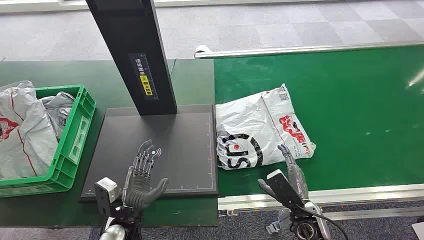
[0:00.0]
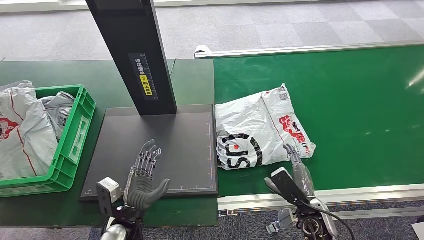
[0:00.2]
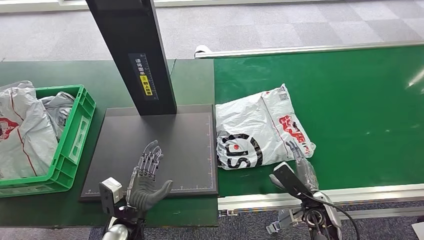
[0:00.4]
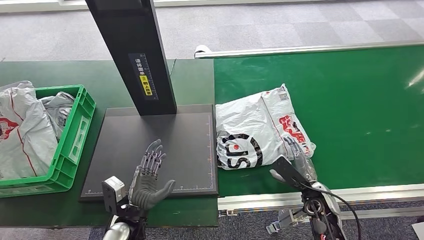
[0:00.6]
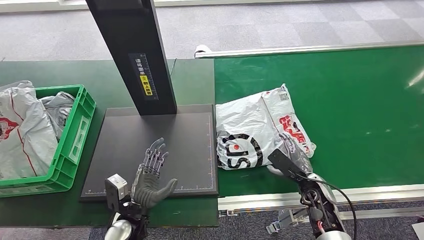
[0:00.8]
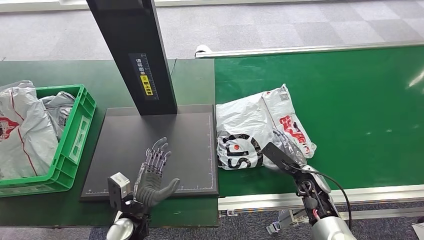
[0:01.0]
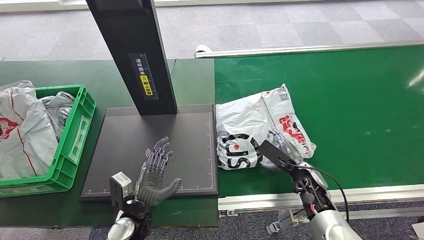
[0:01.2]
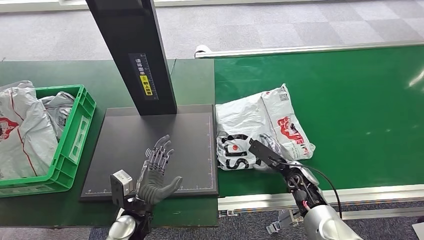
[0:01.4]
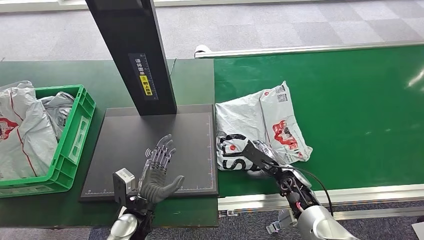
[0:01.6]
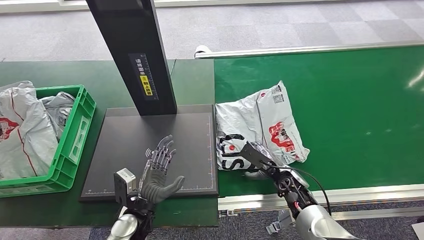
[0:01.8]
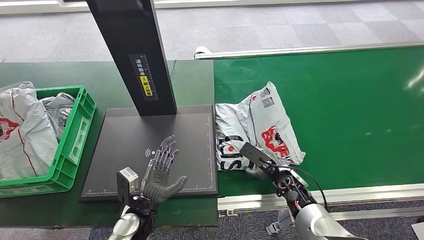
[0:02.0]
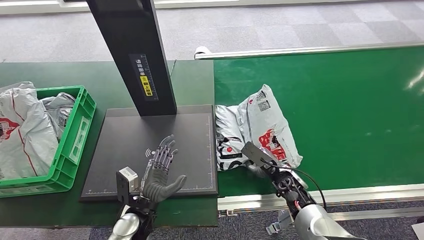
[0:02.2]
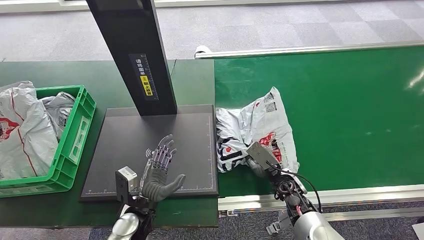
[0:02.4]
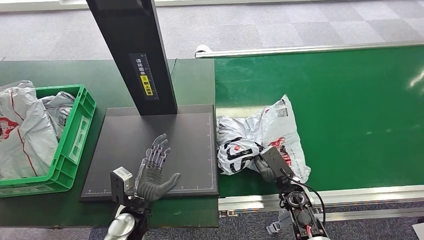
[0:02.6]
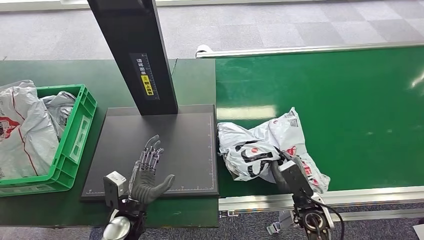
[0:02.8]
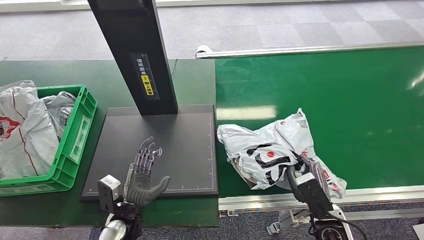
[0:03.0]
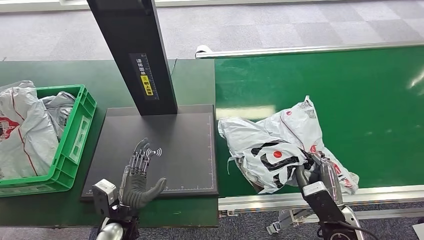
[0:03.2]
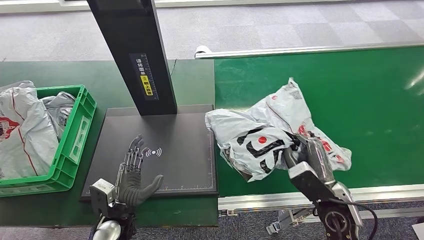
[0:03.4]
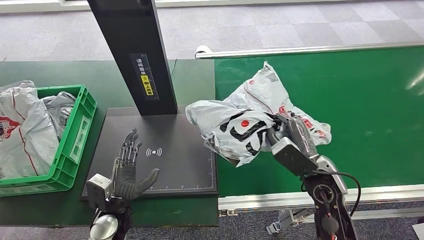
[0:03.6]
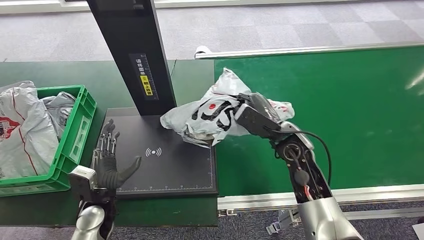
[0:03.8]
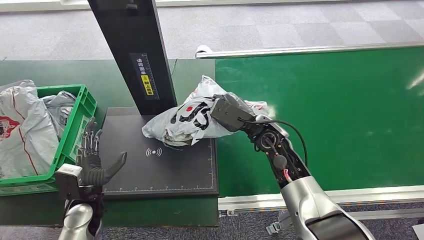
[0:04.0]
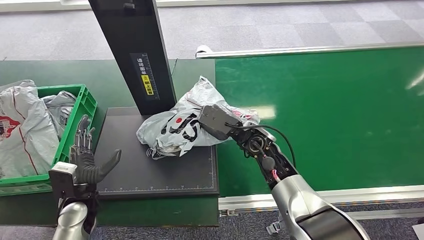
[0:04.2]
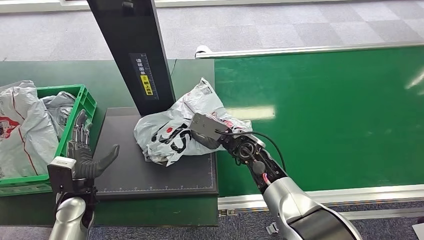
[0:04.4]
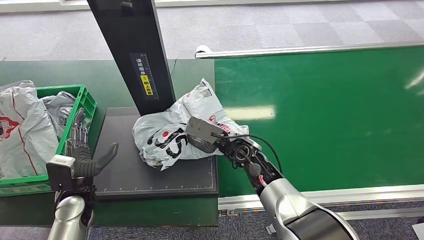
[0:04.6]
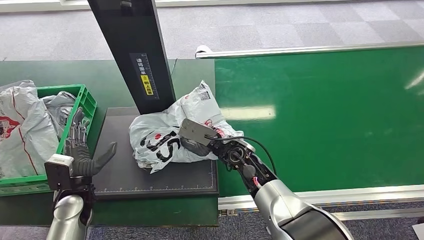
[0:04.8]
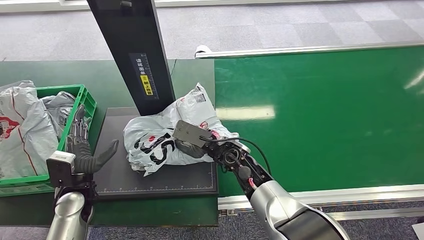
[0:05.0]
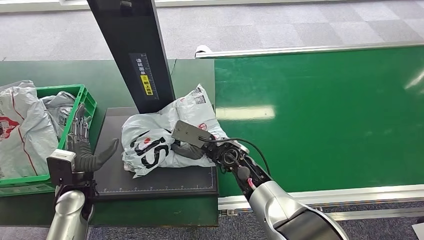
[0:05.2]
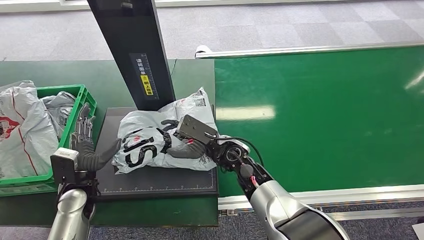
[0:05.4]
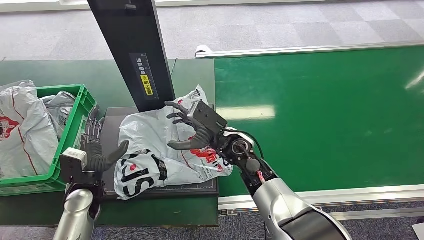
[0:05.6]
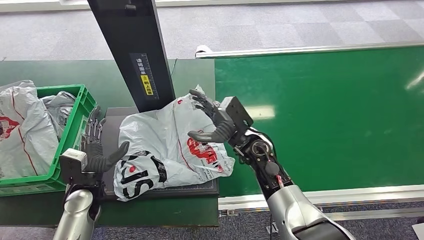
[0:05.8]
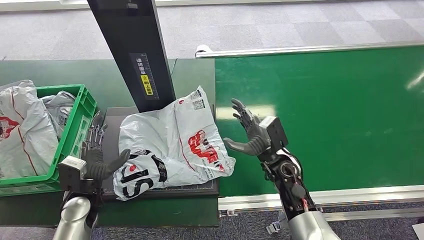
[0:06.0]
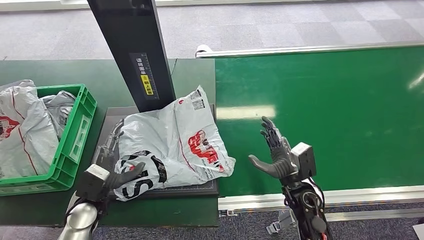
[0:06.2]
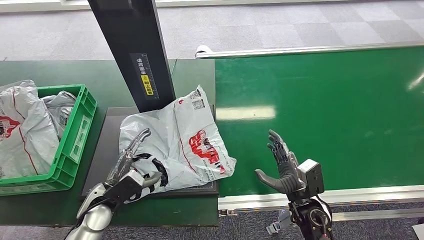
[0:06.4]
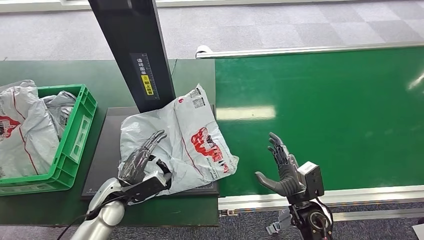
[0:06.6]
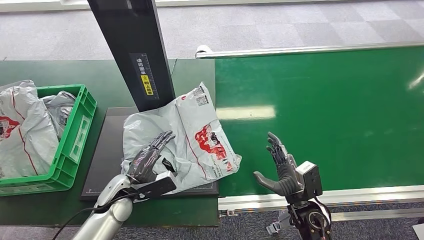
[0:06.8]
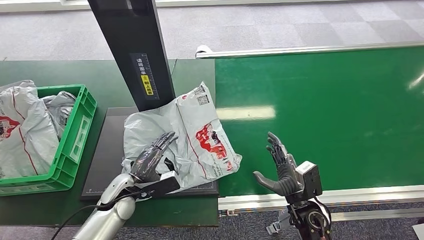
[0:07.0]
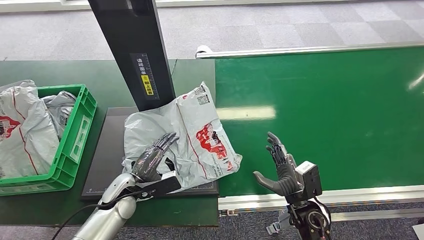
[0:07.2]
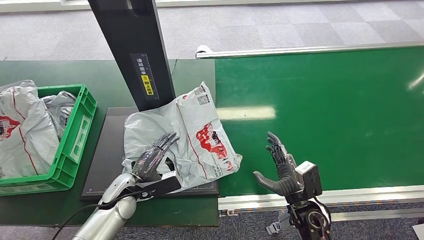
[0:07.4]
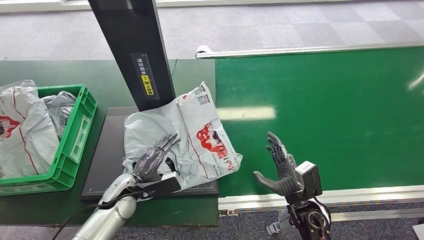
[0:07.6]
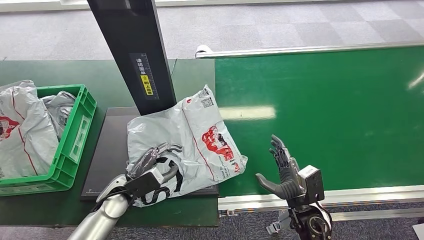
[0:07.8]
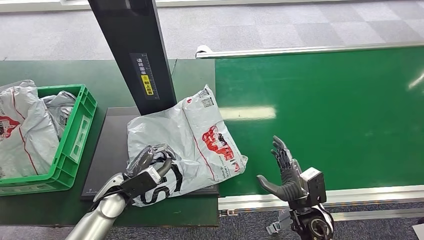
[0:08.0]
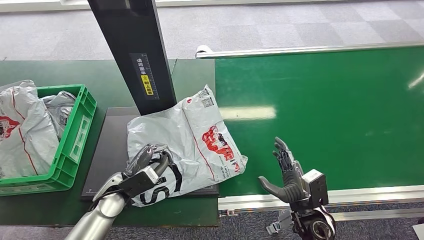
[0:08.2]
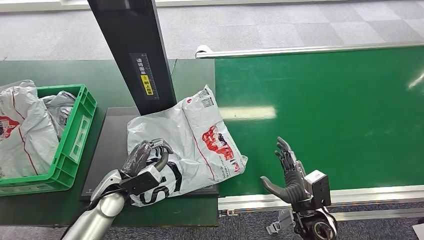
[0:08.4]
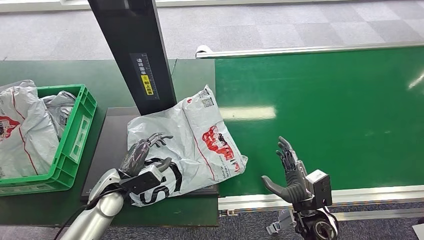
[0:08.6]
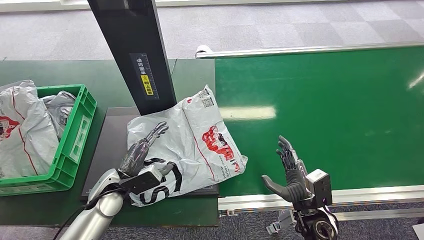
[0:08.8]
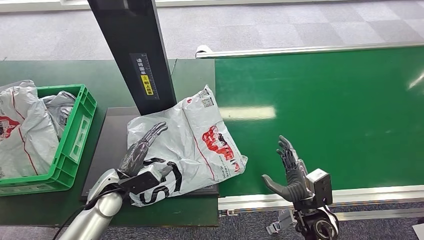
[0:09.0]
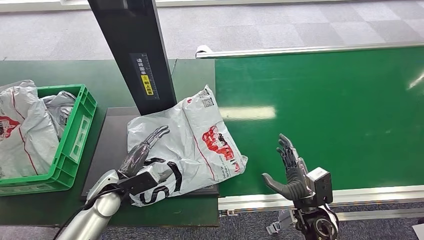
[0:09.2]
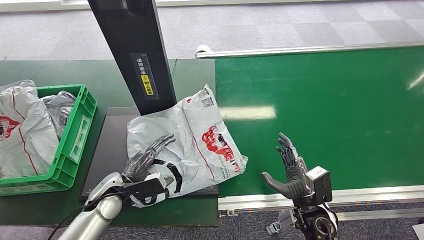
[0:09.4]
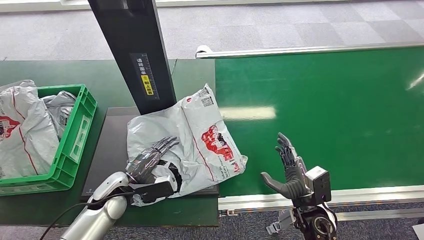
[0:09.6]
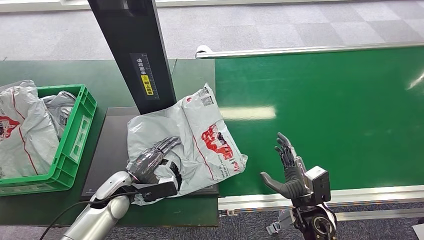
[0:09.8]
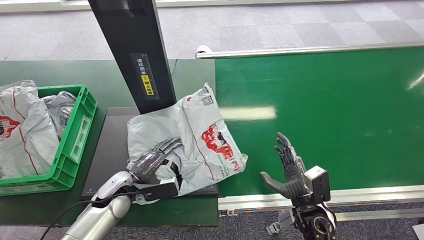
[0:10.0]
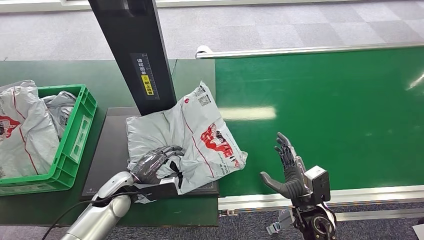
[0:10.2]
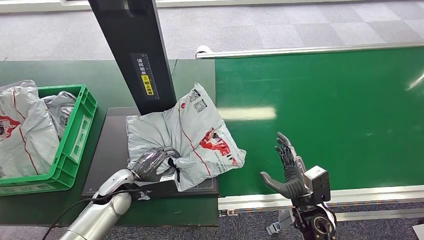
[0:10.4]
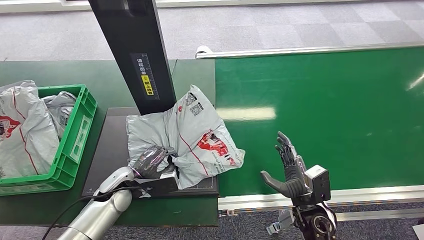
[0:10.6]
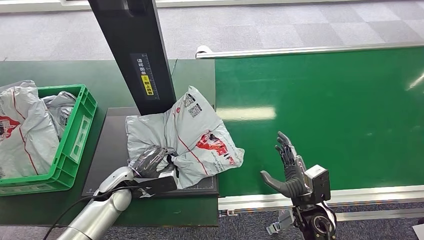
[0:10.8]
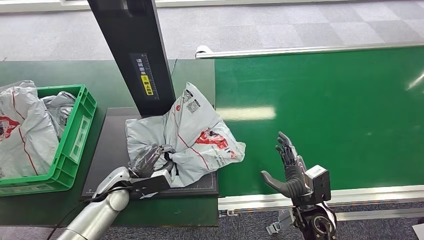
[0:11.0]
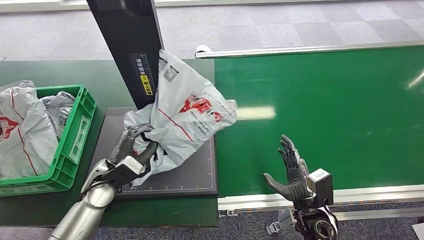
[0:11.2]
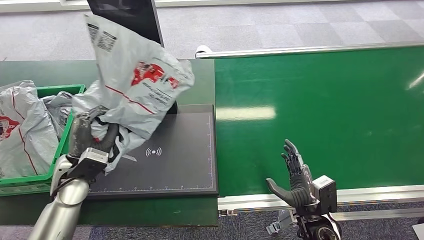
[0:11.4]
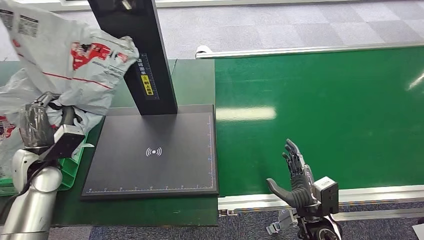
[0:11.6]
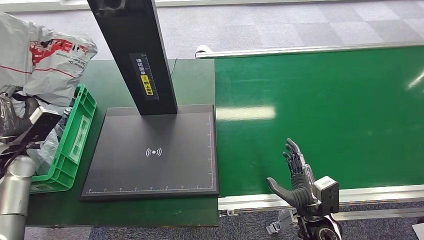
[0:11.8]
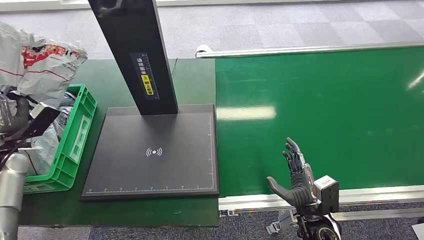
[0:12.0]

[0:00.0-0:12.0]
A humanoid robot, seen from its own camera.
Step, 0:00.0 to 0:03.6: Pick up the package from the conveyor belt.
Step, 0:04.0 to 0:06.2: Place the package onto the inbound machine.
Step, 0:06.6 to 0:11.8: Pick up the package from the inbound machine.
0:01.6 to 0:03.0: The right hand travels backward by some 15 cm.
0:04.4 to 0:06.0: The right hand is displaced to the right by roughly 10 cm.
0:06.0 to 0:07.6: The right hand goes roughly 15 cm backward, to the right and downward; the left hand goes roughly 10 cm to the right.

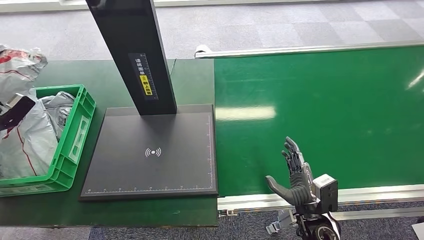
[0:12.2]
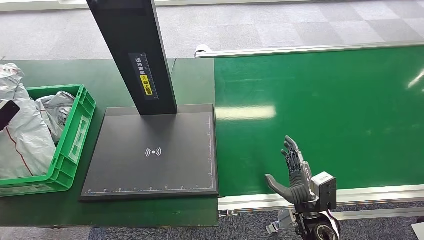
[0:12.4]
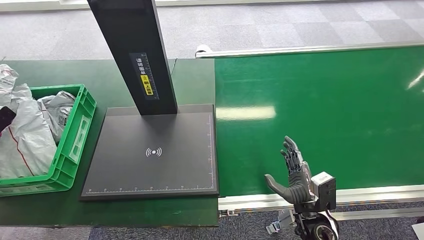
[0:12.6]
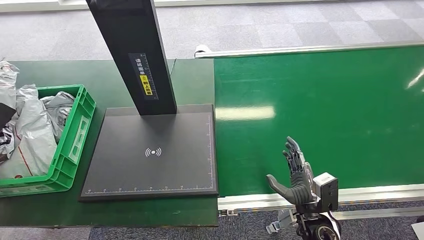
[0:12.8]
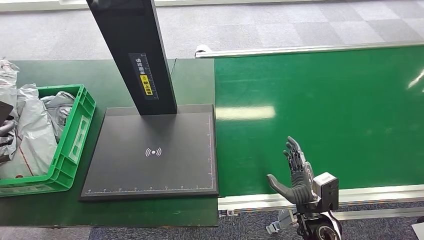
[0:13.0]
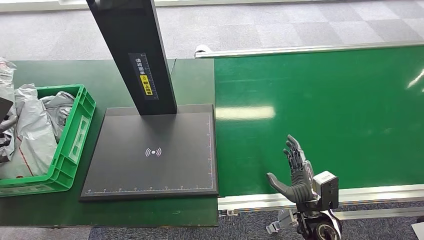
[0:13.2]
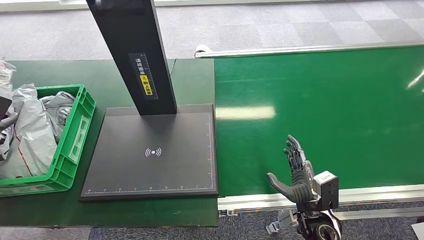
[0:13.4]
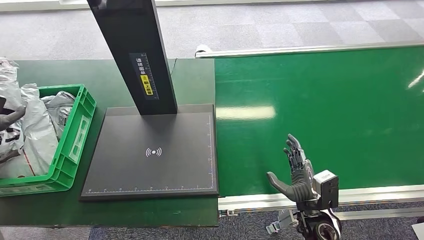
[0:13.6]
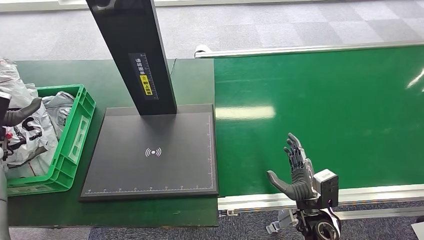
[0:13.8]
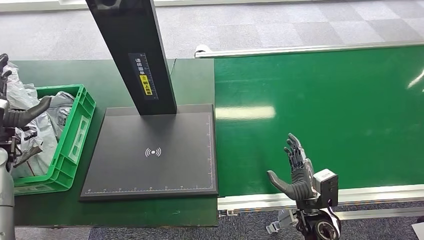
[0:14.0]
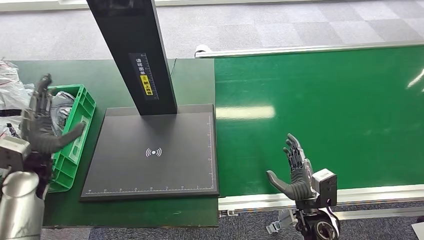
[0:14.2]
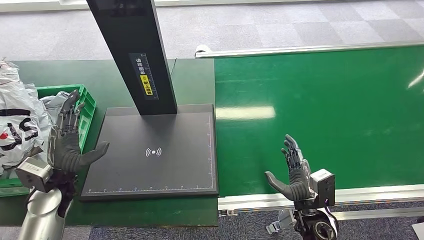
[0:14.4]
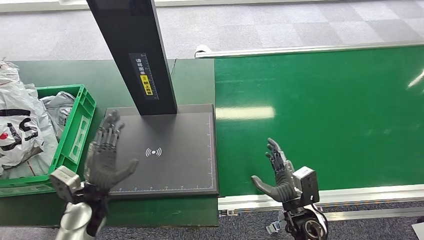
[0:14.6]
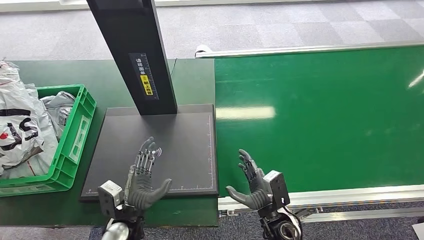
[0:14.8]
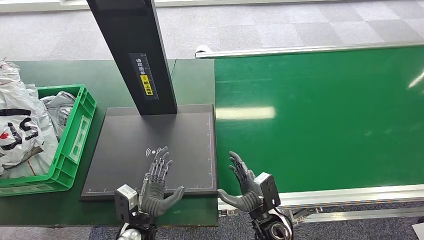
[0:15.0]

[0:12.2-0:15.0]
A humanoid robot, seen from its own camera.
Step, 0:12.2 to 0:15.0: Place the package into the parcel locker.
0:13.6 to 0:15.0: The left hand shifts about 40 cm to the right, while the right hand travels to the left by roughly 10 cm.

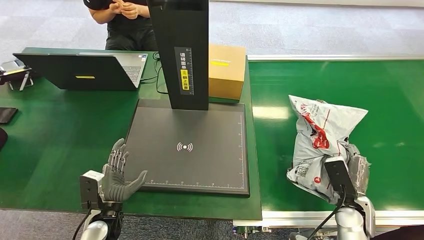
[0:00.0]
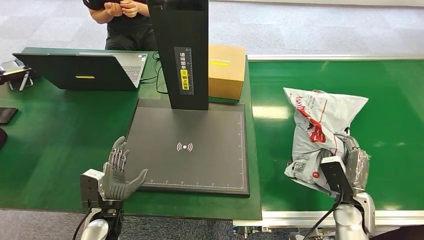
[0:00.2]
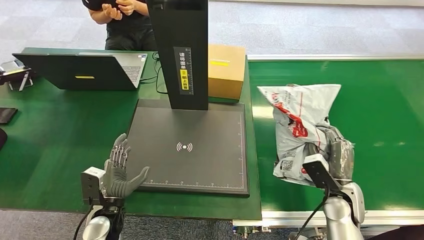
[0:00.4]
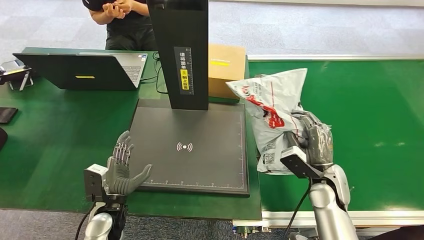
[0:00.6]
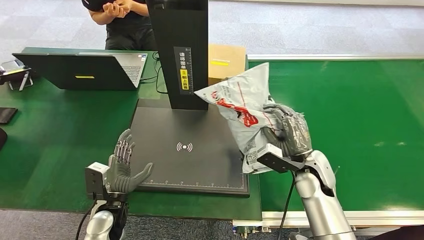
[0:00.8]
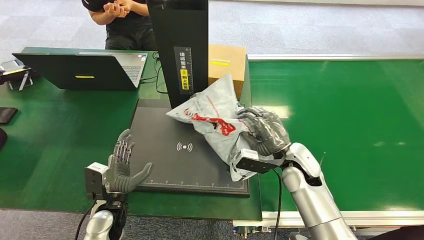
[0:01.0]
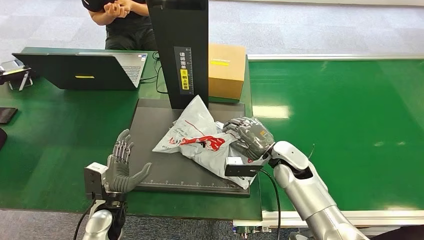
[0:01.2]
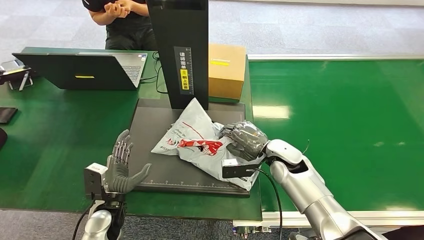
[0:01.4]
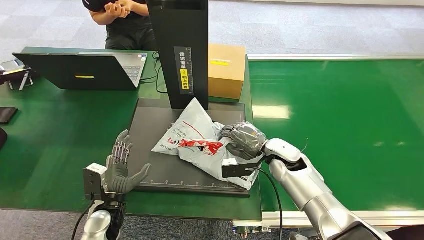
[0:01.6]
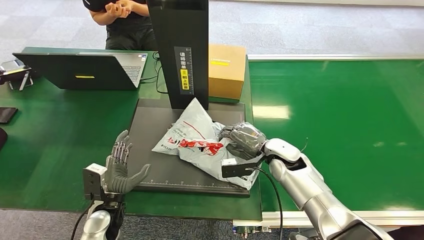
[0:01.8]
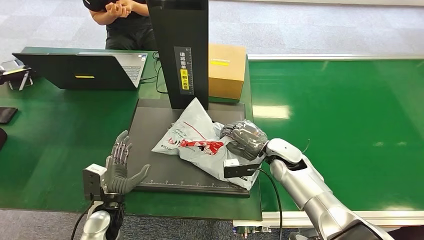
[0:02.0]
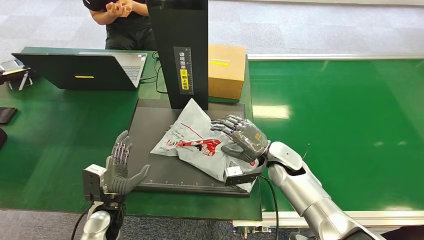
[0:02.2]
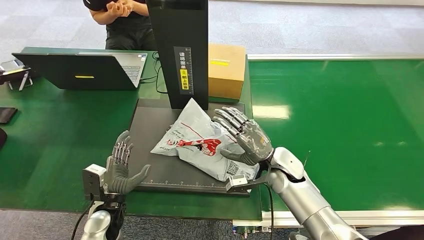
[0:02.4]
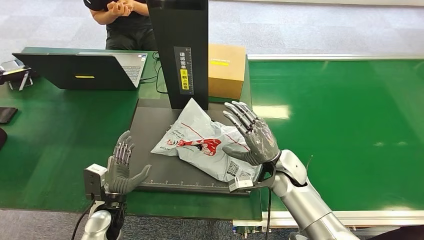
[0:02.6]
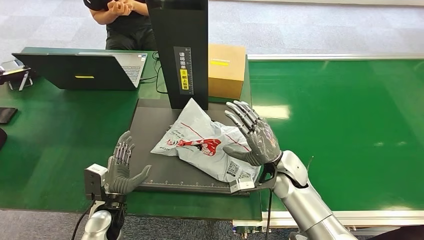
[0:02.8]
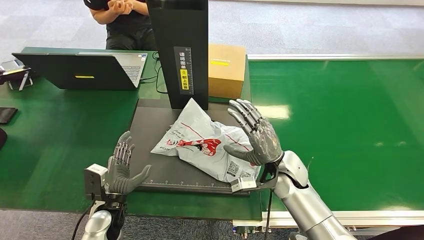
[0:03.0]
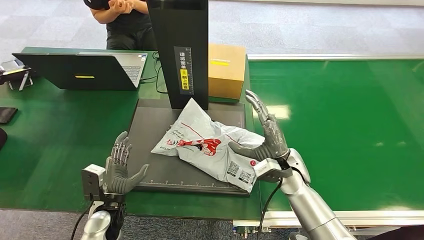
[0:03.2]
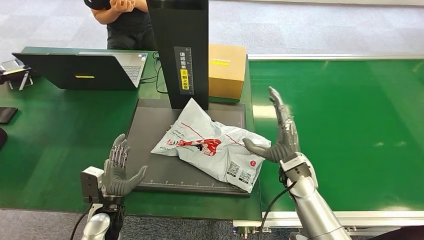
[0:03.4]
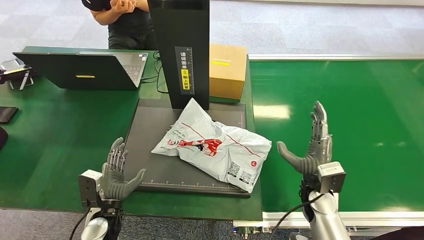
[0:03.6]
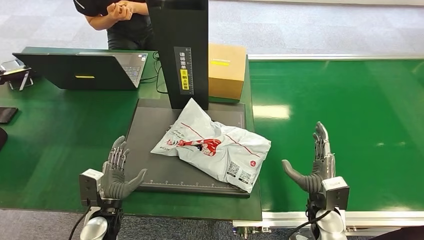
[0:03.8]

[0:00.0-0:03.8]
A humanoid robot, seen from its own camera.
Step, 0:00.8 to 0:03.0: Place the package onto the inbound machine.
0:02.6 to 0:03.8: The right hand shifts approximately 15 cm to the right, backward and downward.
